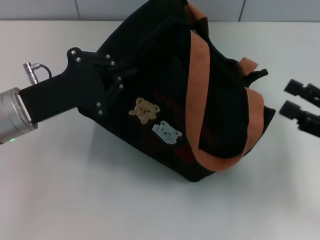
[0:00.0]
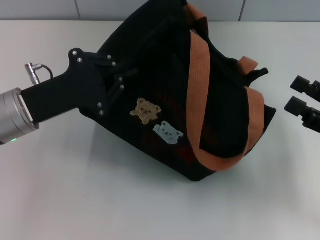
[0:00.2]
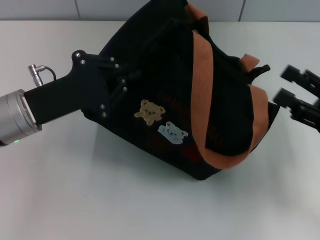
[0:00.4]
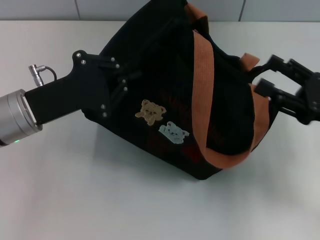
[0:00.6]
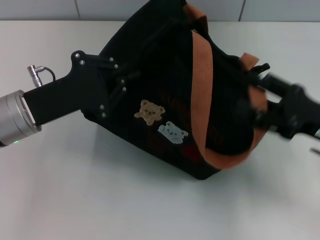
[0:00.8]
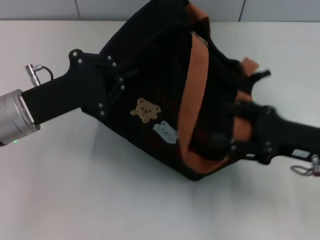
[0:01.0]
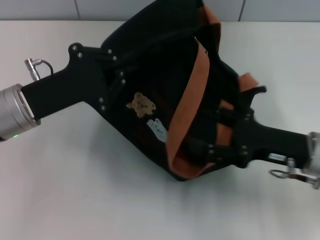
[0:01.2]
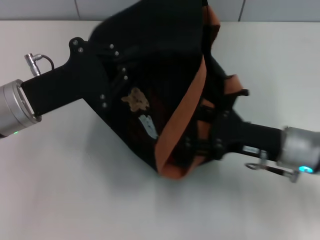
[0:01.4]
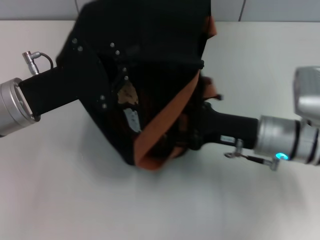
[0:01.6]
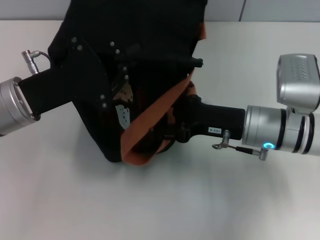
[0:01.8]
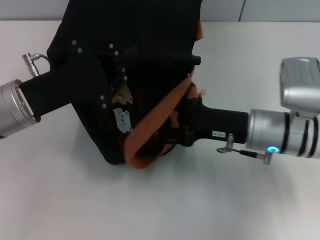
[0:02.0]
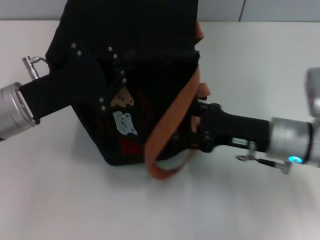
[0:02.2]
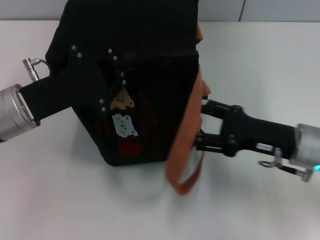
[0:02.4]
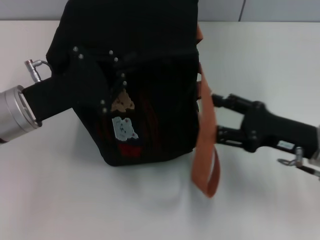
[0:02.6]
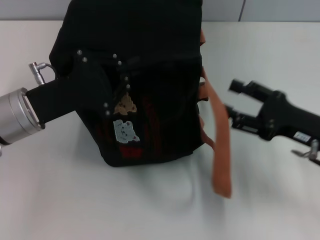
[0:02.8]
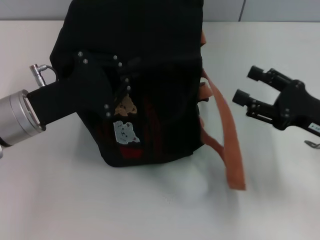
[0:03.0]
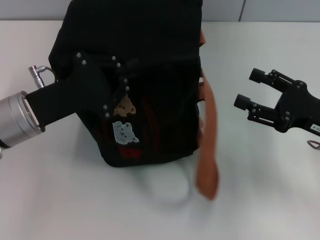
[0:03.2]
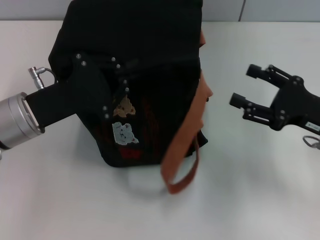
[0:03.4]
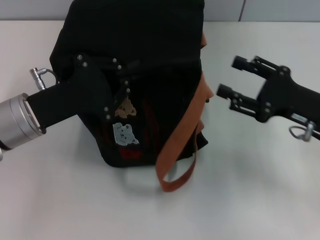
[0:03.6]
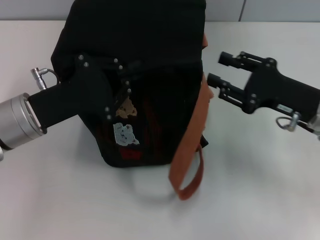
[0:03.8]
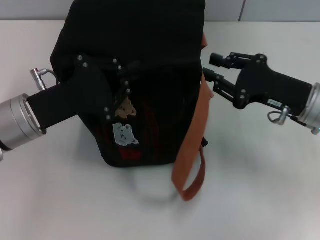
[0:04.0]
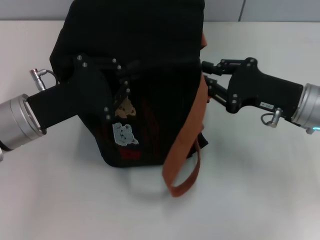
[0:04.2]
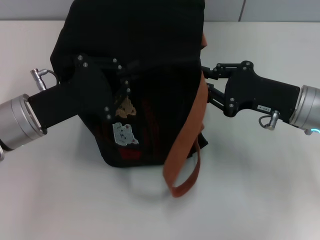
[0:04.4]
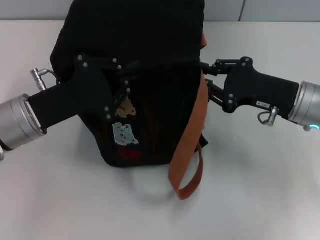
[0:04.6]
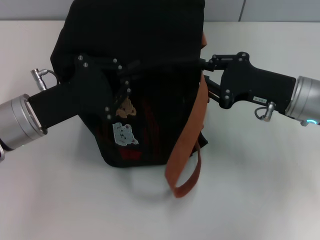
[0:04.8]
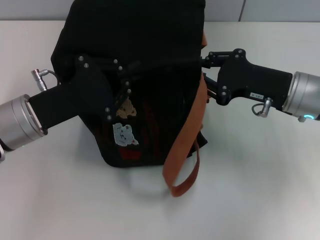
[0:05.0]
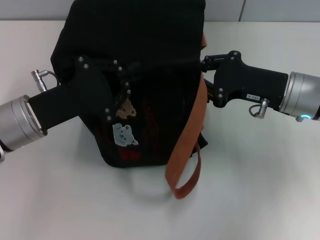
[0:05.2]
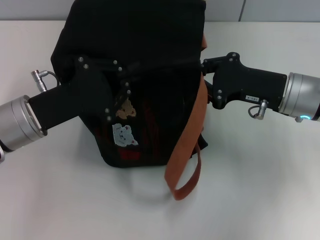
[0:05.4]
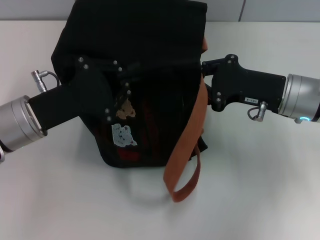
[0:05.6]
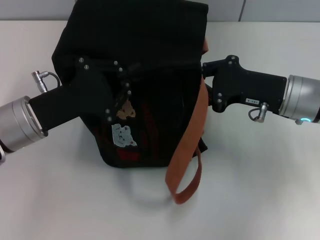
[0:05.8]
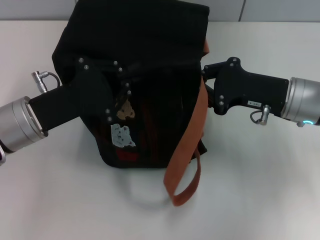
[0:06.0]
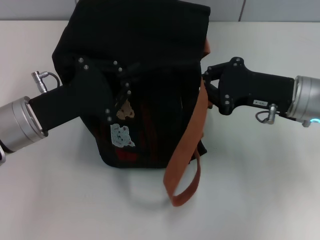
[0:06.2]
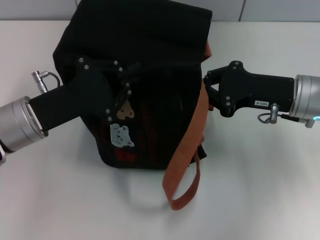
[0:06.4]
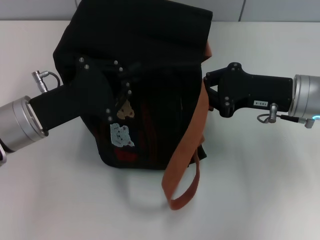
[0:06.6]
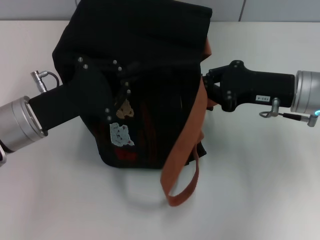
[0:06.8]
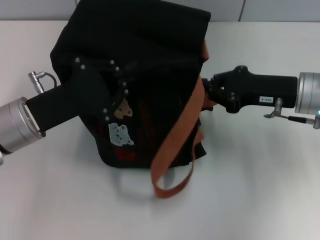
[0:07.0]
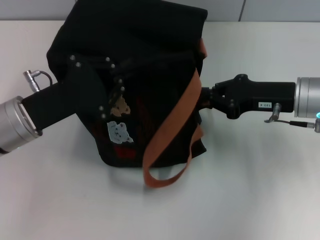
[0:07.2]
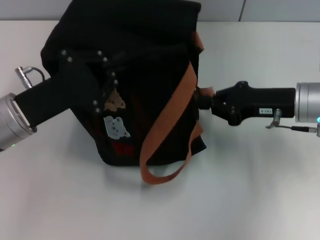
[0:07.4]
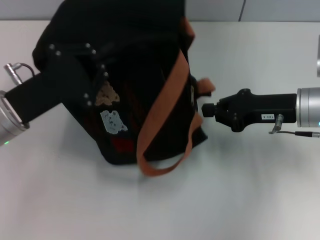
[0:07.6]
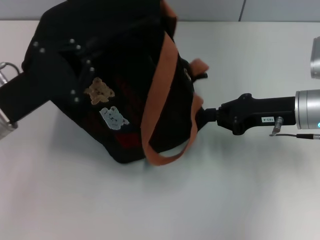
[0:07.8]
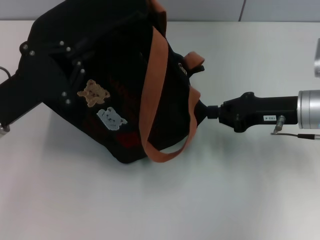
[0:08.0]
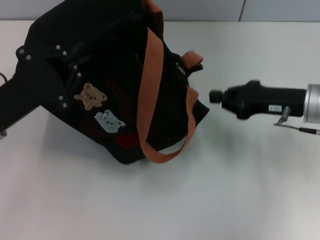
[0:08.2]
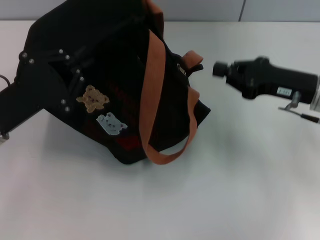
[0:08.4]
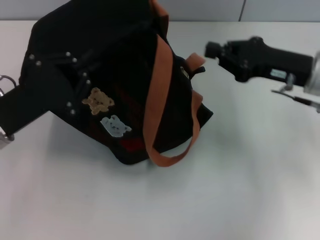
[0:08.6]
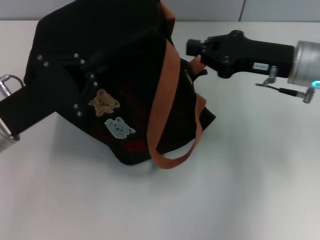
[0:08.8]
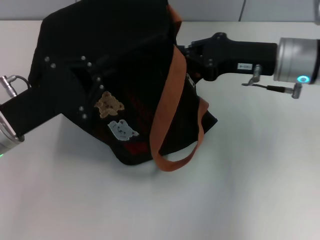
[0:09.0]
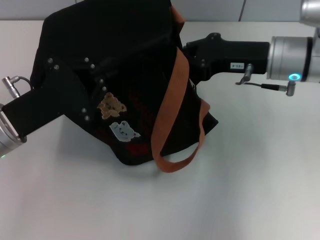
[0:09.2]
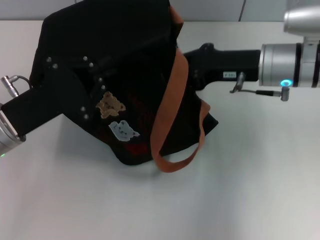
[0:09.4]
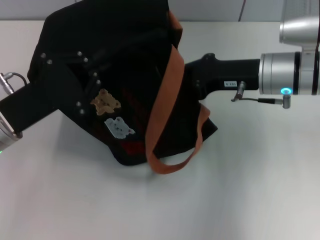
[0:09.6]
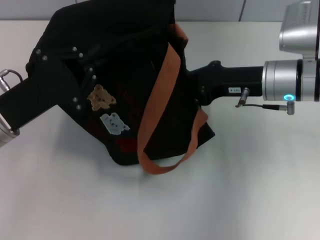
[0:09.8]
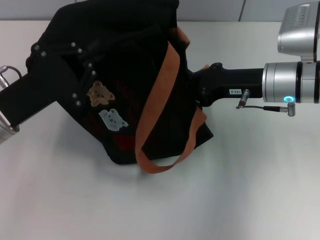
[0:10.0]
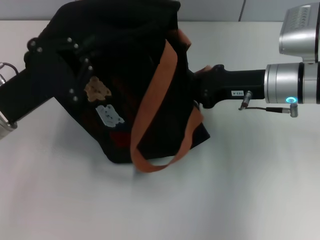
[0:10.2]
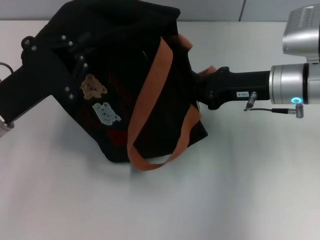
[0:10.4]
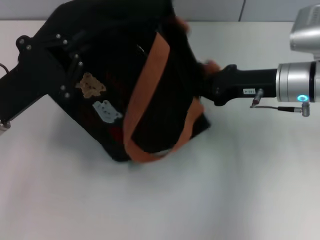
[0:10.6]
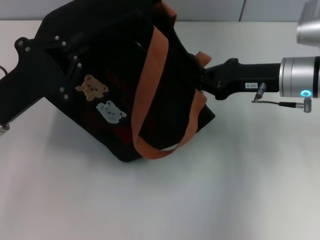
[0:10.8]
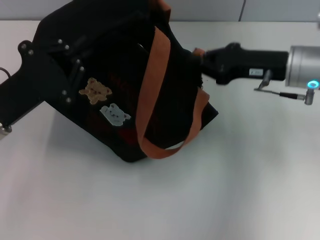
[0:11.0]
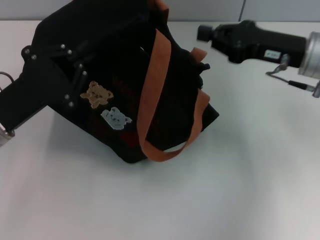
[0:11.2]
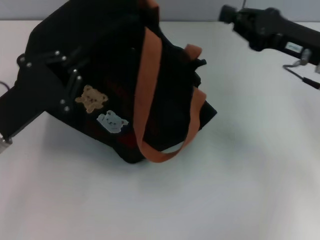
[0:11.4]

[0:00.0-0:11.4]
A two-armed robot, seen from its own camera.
Step, 0:00.0 to 0:11.0: Pull open the zipper with your right hand.
0:00.0 to 0:01.4: The right gripper goes approximately 10 cm to the left.
0:01.4 to 0:02.8: The right gripper travels to the right by about 5 cm.
0:02.8 to 0:04.2: The right gripper is displaced forward by some 5 cm, and closes up.
0:04.2 to 0:05.6: The grippers move only a little.
0:08.6 to 0:10.0: The right gripper shifts by roughly 5 cm.
0:10.0 to 0:11.4: The right gripper travels to the right by about 5 cm.

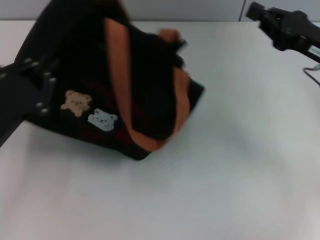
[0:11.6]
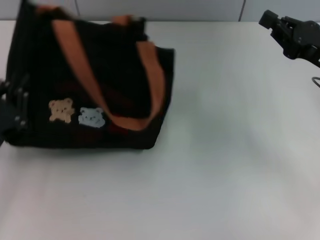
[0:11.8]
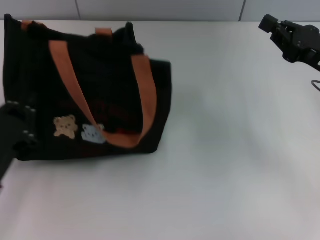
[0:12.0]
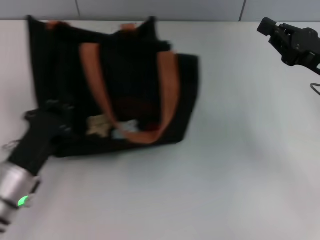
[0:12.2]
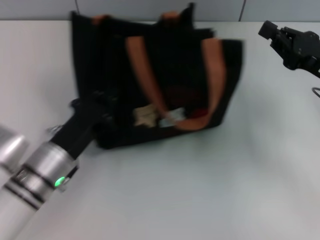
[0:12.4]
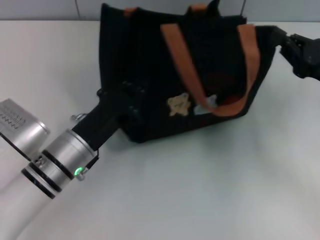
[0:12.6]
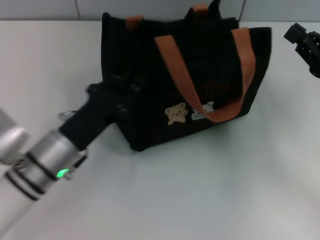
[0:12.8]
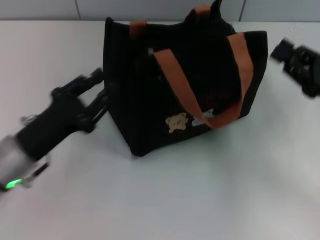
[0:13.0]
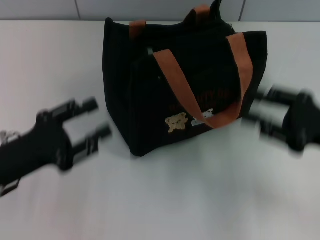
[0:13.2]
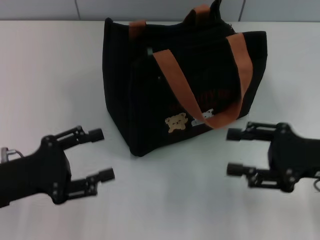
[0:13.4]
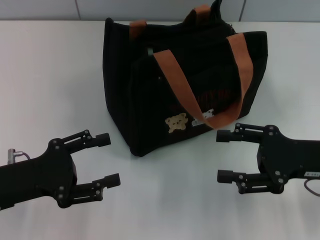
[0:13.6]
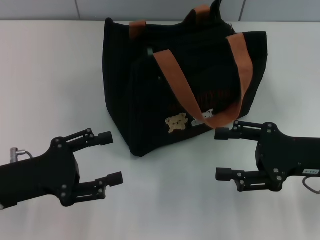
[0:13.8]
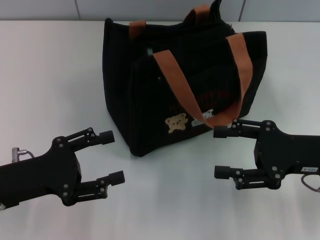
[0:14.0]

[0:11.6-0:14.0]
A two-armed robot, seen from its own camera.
Step, 0:11.6 to 0:12.8: Grab the bag with your left hand.
0:11.6 to 0:12.8: The left gripper is displaced to the right by approximately 10 cm. The right gripper shifts by roughly 5 cm.
0:12.8 to 0:14.0: The right gripper changes place by roughly 5 cm, and opens up. The left gripper travels to the left by some 10 cm, and opens.
